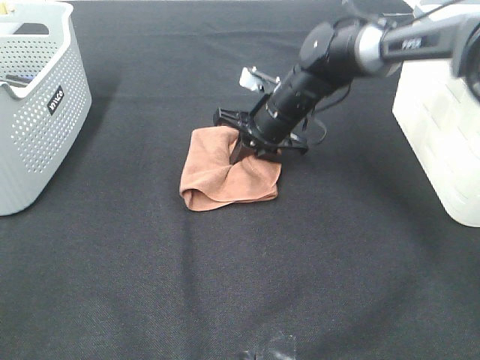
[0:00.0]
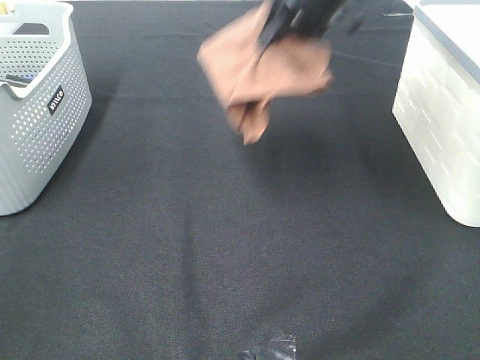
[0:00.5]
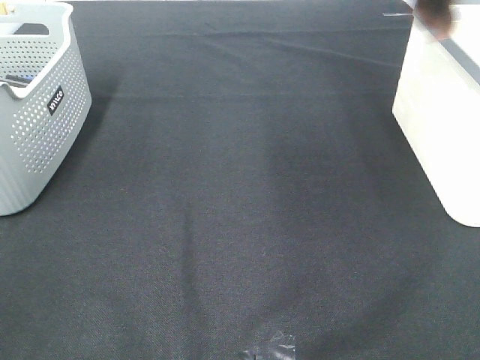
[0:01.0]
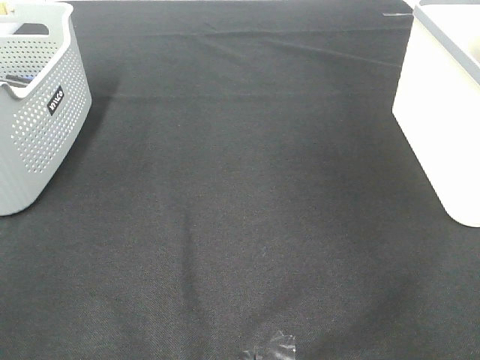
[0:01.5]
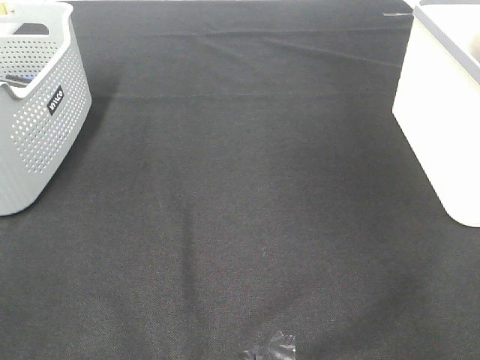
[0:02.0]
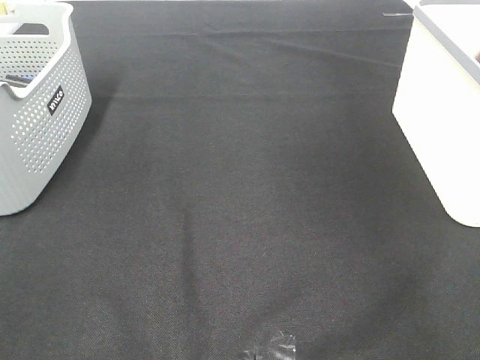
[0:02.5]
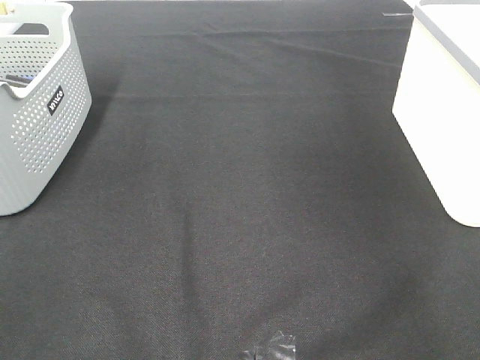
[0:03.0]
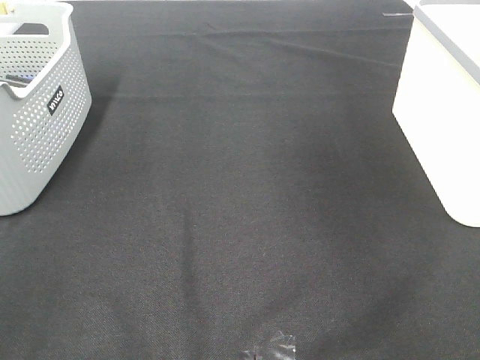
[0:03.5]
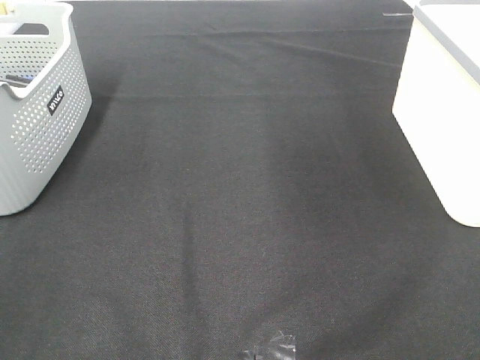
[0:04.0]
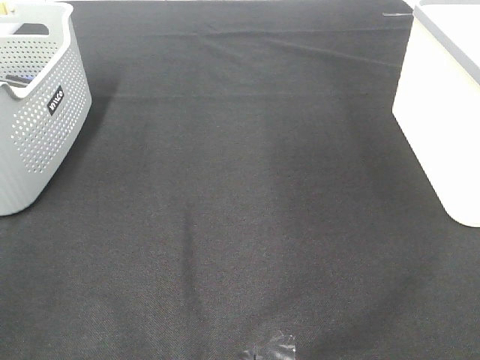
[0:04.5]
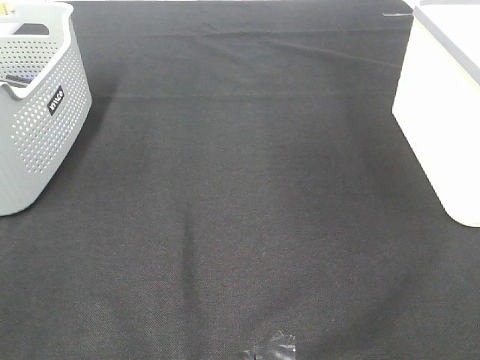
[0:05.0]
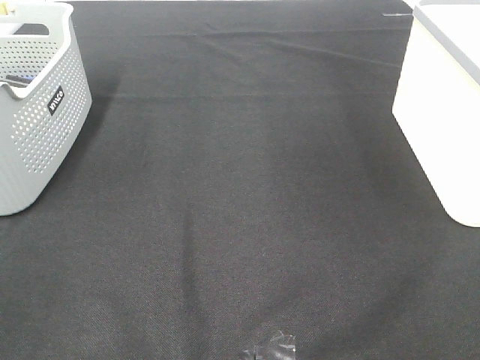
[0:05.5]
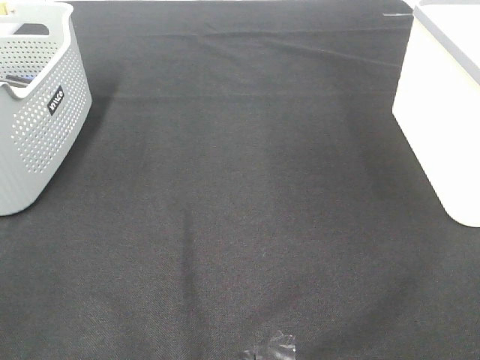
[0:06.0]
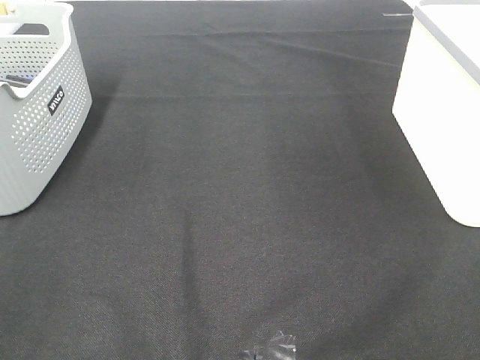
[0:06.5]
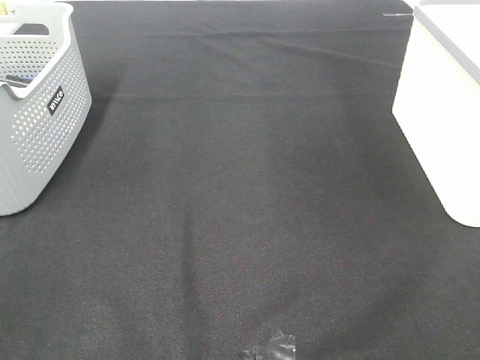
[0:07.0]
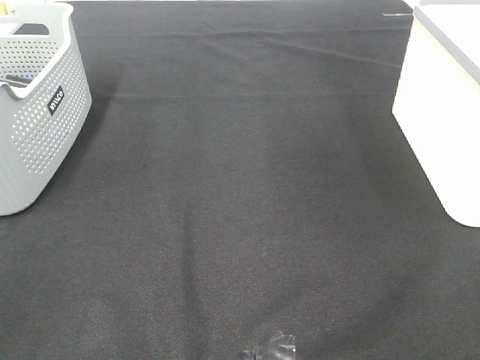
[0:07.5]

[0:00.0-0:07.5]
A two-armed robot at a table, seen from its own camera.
Step, 0:00.0 to 0:02.5: Right hand: place the brown towel in right basket.
0:00.0 to 0:02.0: The right gripper shifts approximately 40 cm to the right and upward.

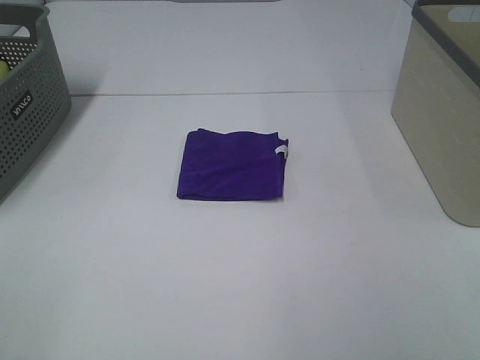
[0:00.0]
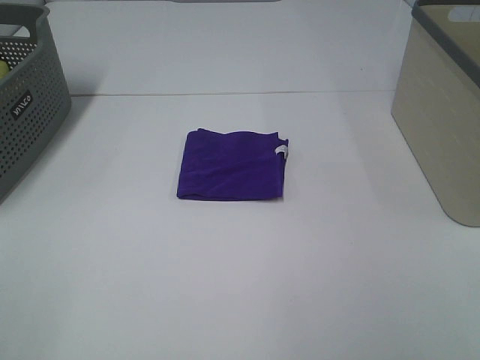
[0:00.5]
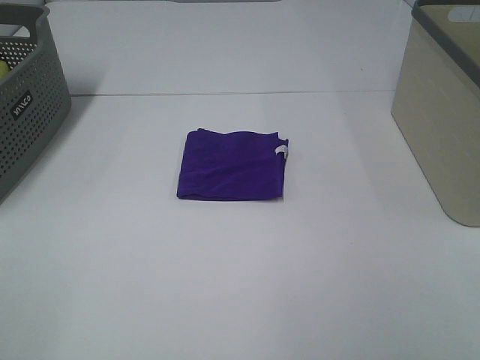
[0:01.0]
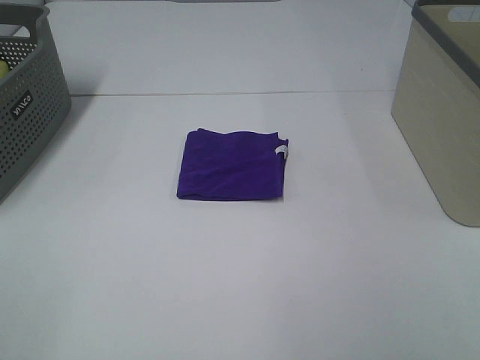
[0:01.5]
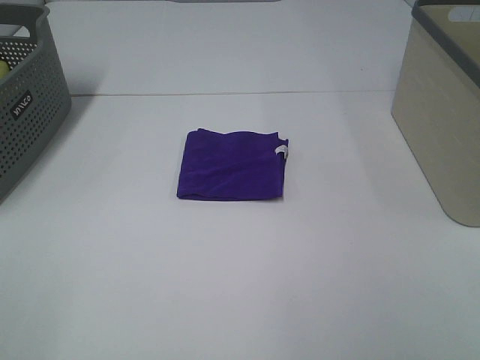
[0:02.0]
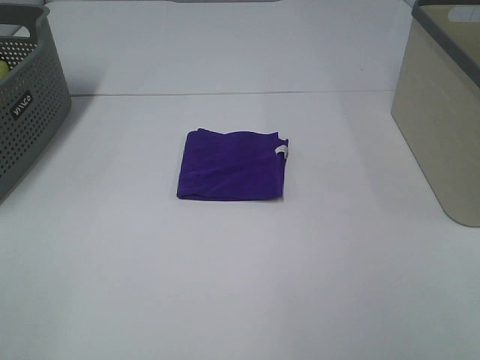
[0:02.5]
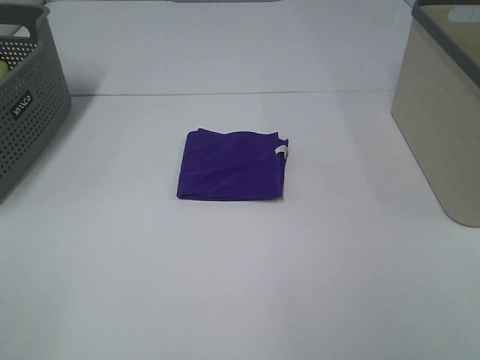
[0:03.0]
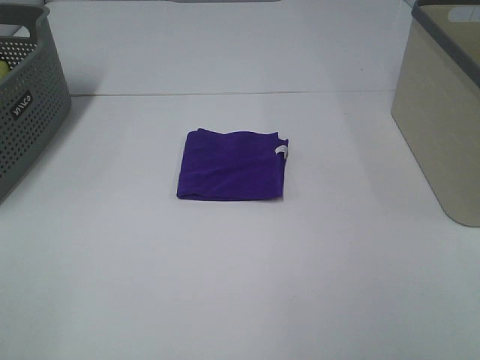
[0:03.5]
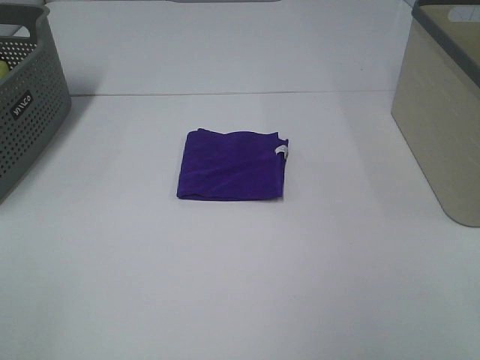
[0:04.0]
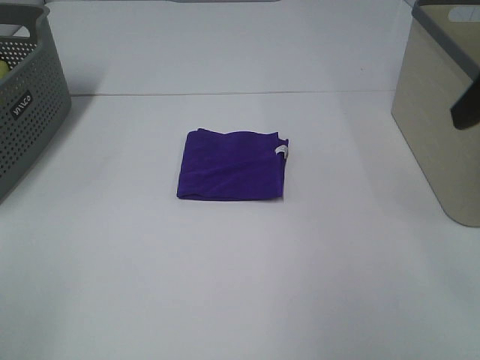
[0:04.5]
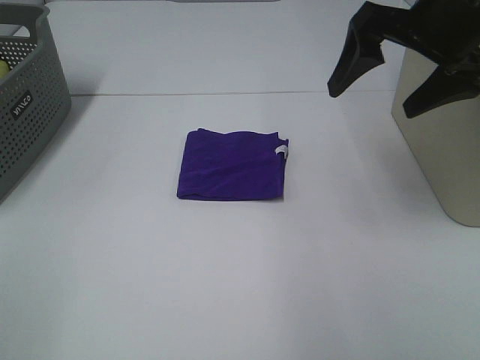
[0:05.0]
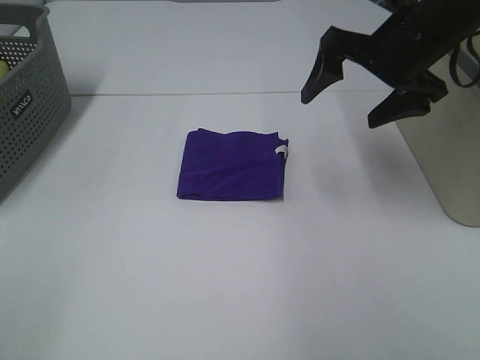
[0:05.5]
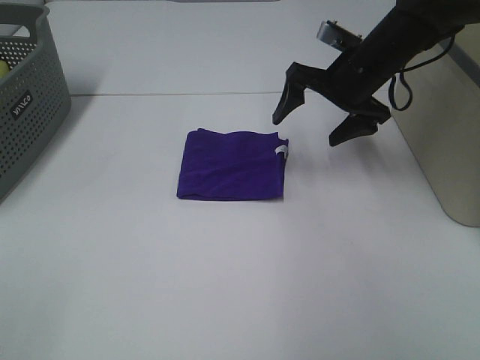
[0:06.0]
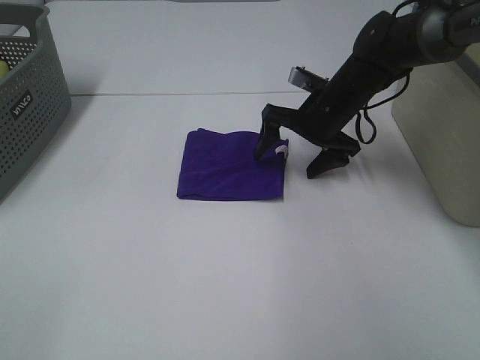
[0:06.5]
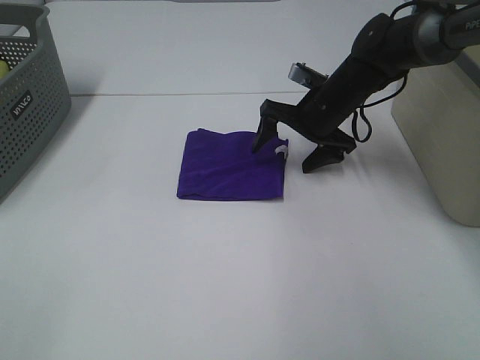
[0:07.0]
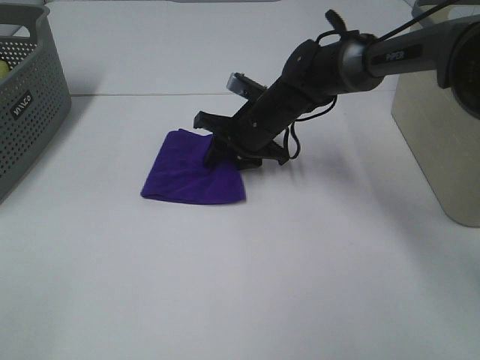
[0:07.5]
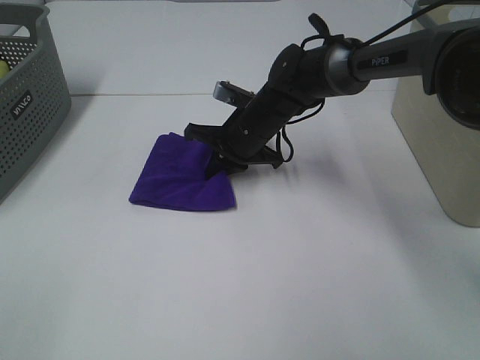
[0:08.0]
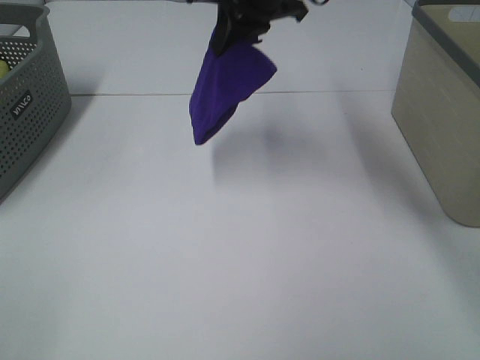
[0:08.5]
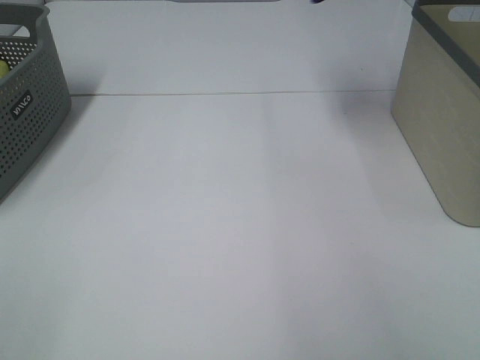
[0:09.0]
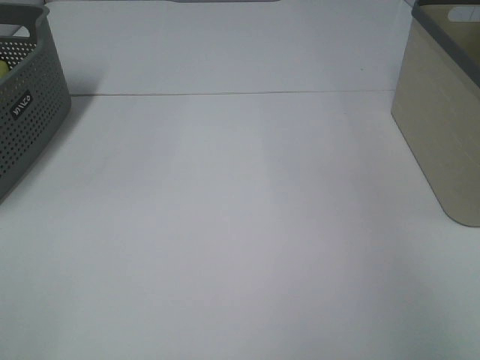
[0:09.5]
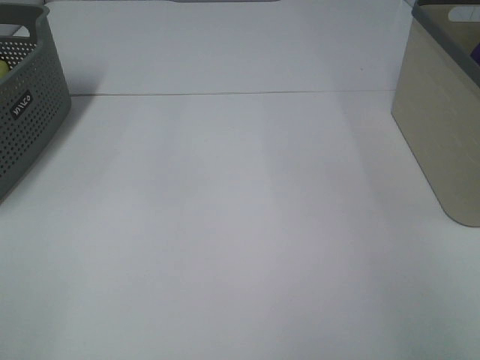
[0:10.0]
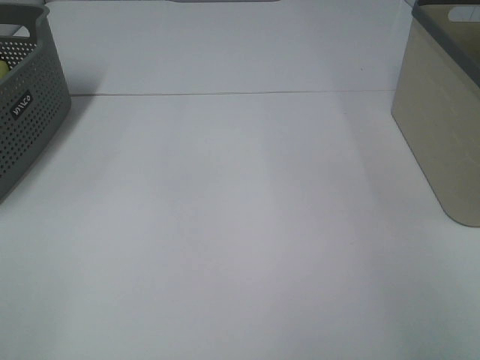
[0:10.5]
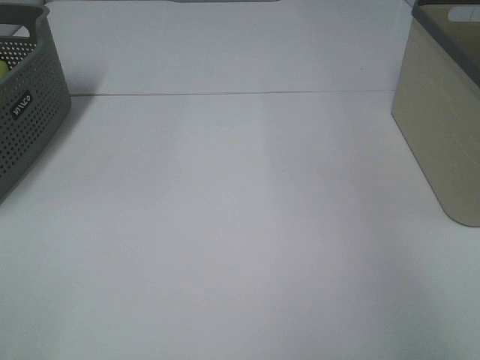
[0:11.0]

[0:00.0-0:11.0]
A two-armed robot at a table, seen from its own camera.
Step, 0:00.0 to 0:07.5: Right hand: grab the folded purple towel.
Step, 0:08.0 to 0:10.5: Right hand: place the purple towel in right basket.
0:00.0 to 0:03.5: Both grippers stay about where they are.
0:03.5 to 0:05.5: The right gripper is displaced forward by some 35 cm.
0:05.5 to 0:07.5: The right gripper travels downward, to the left and forward by some 25 cm, and closes its fingers.
0:07.5 to 0:09.0: The right gripper is displaced upward and to the right by roughly 40 cm, and closes its fingers.
0:09.0 to 0:11.0: The right gripper goes approximately 15 cm to the right, and opens its fingers.

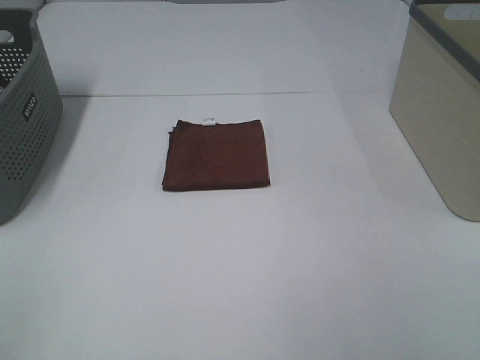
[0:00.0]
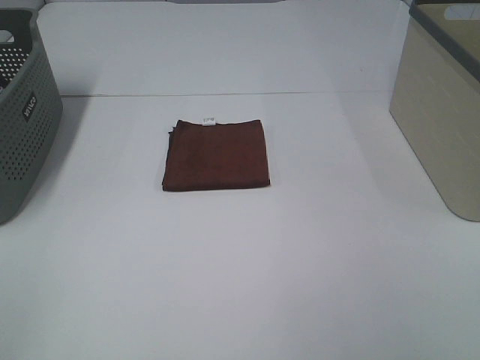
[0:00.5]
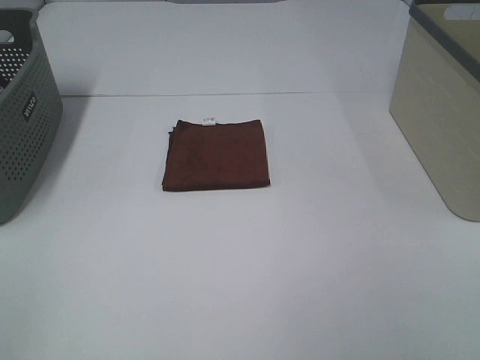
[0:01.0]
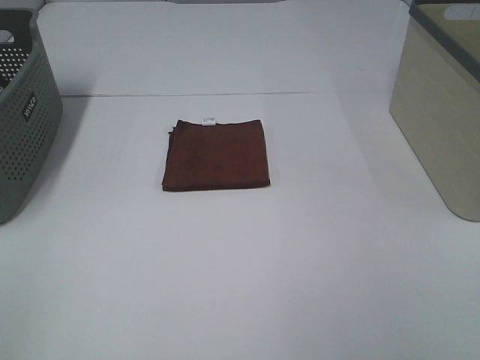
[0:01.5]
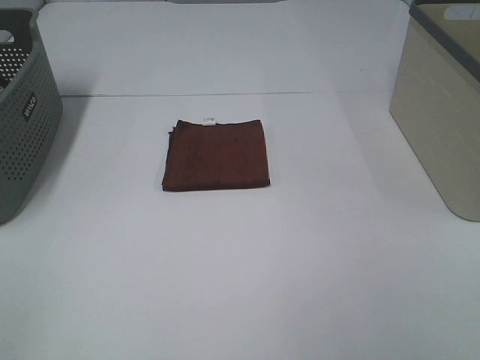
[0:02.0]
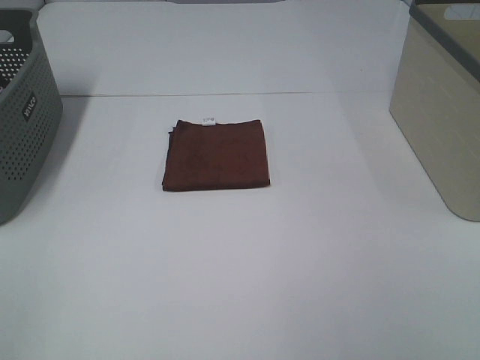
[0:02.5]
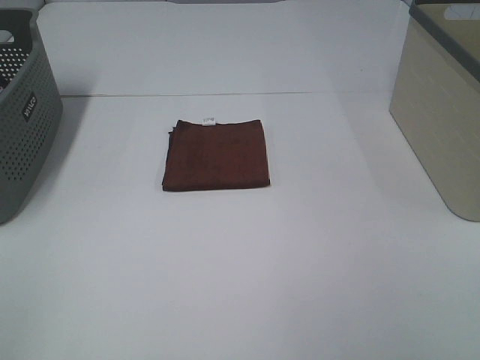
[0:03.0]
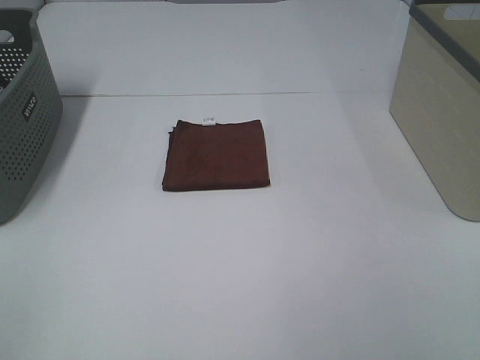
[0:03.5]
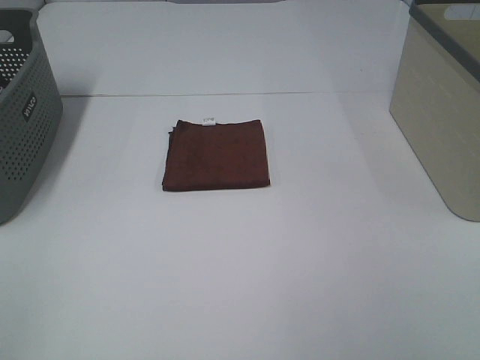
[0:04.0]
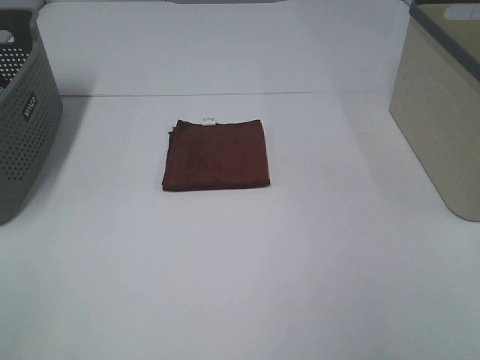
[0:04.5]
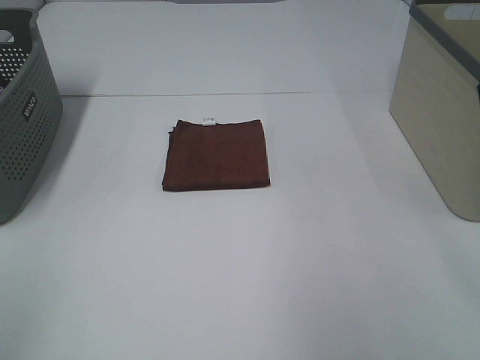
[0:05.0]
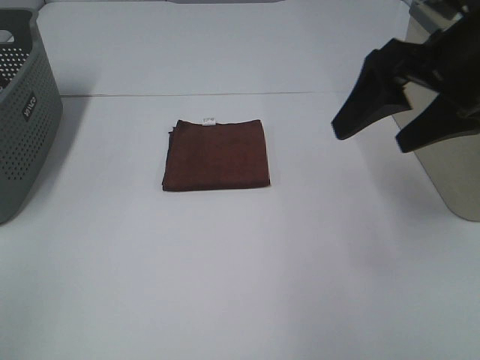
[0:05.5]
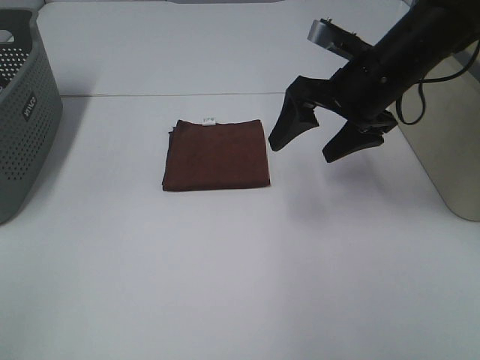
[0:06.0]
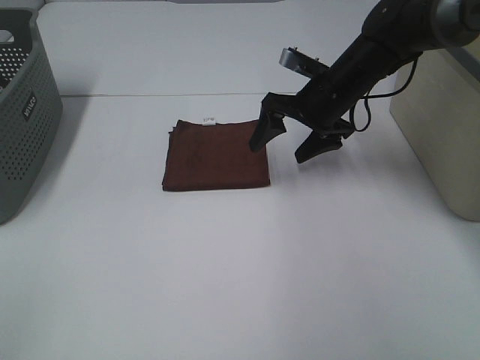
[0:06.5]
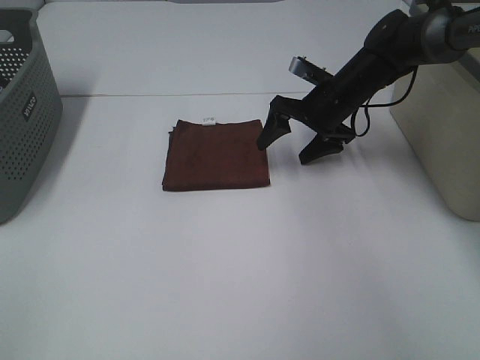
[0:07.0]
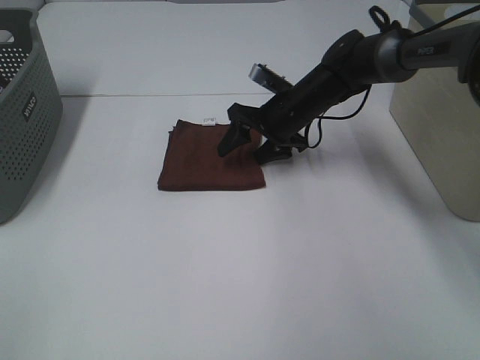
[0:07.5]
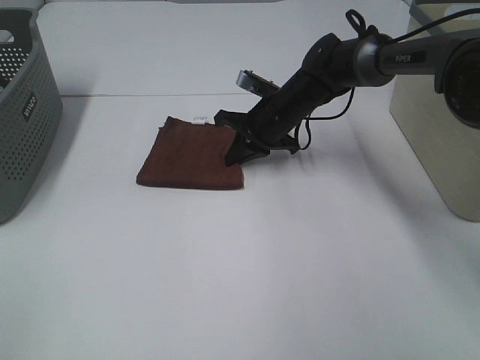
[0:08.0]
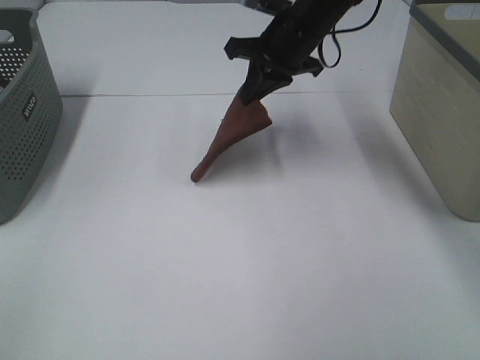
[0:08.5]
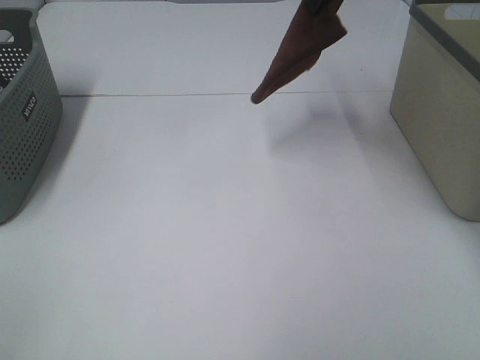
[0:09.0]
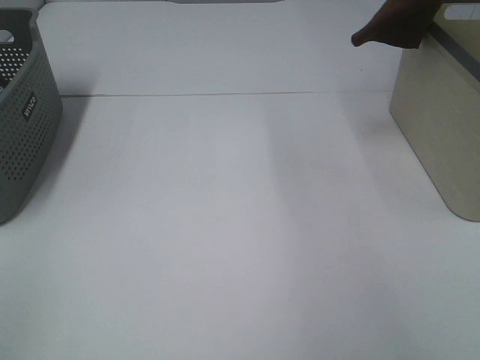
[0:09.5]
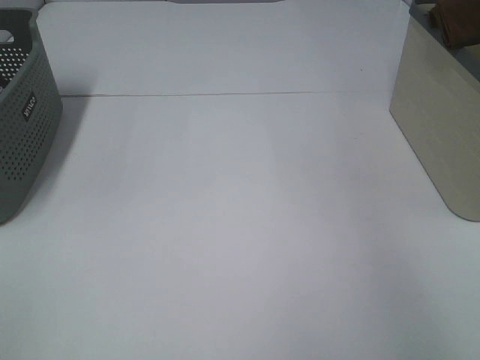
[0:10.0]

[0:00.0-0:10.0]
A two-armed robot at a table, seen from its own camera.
Step, 0:00.0 to 0:08.0: Right hand: grab the folded brown towel.
0:00.0 to 0:04.0: Both grippers stay about where they are.
0:04.0 to 0:06.0: The right gripper shifts approximately 40 cm forward and to the left.
0:06.0 to 0:08.0: The right gripper moves downward, forward and to the left, about 20 cm, and closes its fingers.
0:08.0 to 0:10.0: The right gripper moves to the right and upward, some 40 cm.
